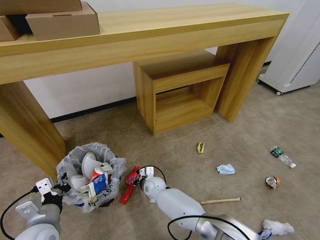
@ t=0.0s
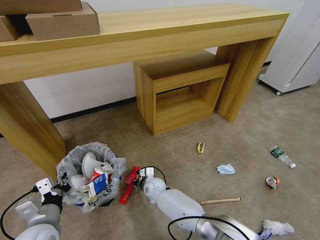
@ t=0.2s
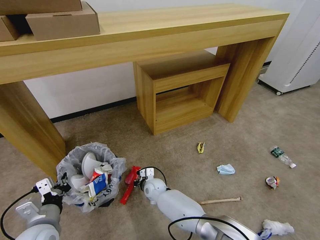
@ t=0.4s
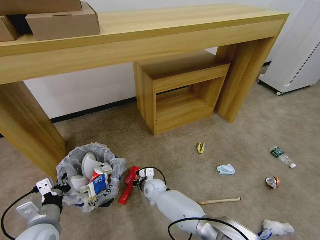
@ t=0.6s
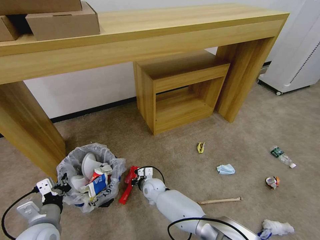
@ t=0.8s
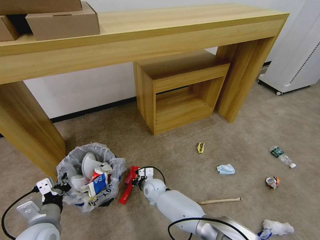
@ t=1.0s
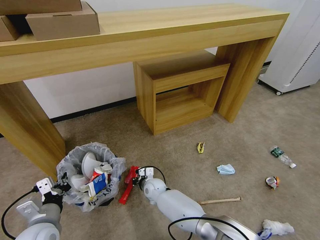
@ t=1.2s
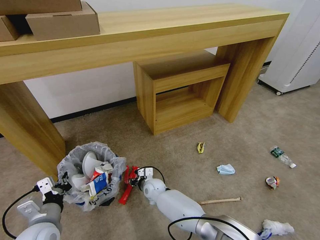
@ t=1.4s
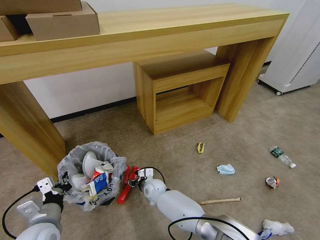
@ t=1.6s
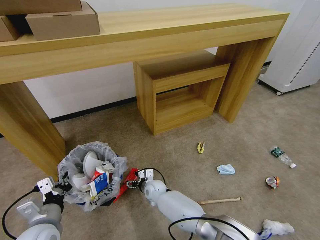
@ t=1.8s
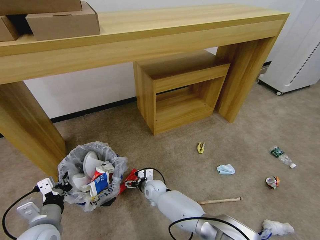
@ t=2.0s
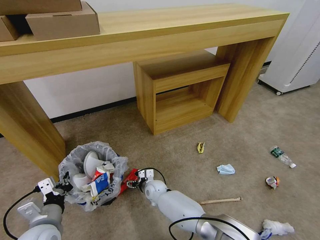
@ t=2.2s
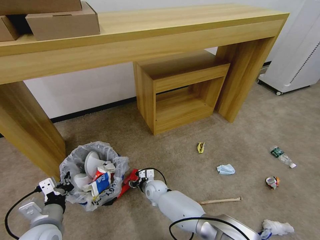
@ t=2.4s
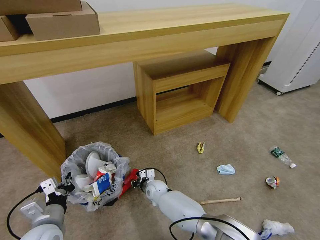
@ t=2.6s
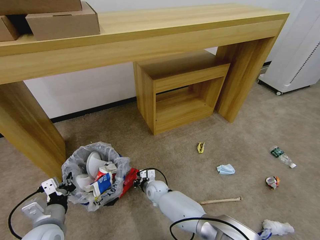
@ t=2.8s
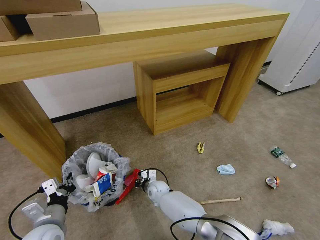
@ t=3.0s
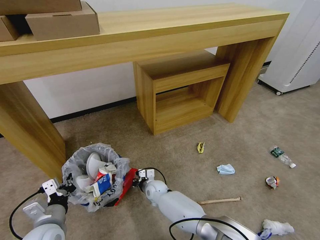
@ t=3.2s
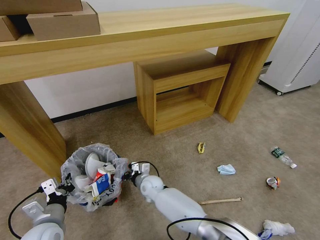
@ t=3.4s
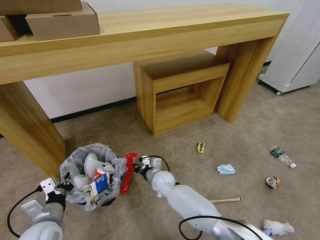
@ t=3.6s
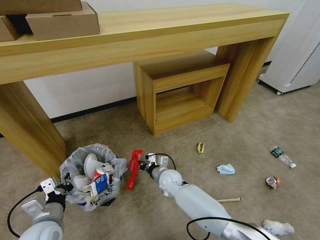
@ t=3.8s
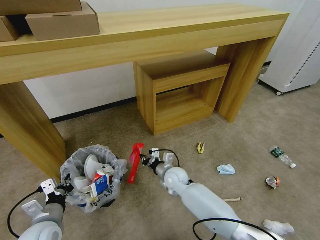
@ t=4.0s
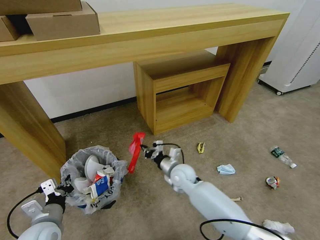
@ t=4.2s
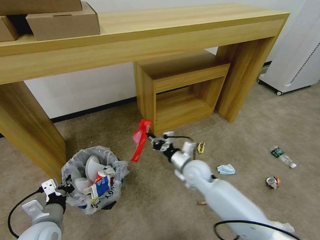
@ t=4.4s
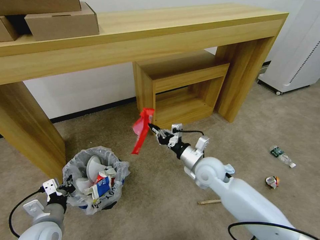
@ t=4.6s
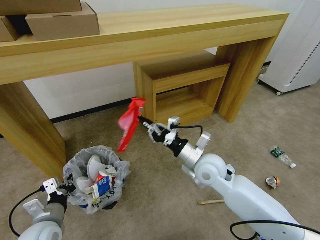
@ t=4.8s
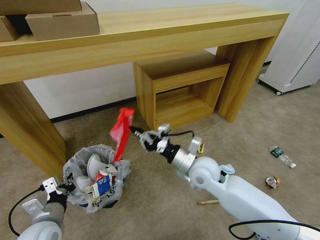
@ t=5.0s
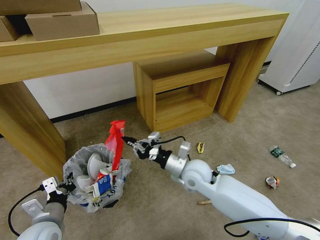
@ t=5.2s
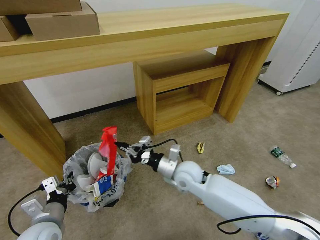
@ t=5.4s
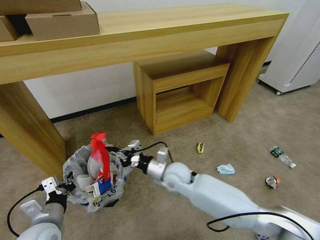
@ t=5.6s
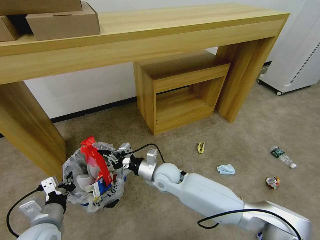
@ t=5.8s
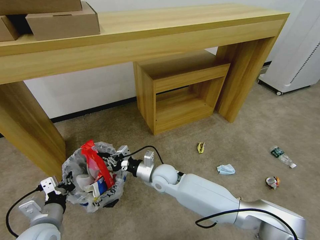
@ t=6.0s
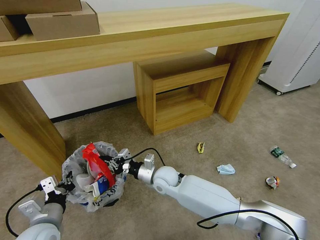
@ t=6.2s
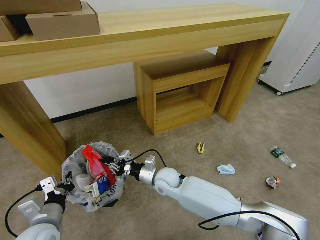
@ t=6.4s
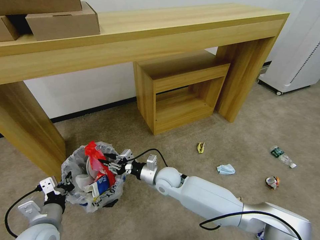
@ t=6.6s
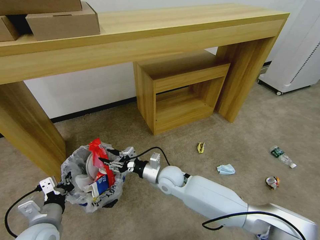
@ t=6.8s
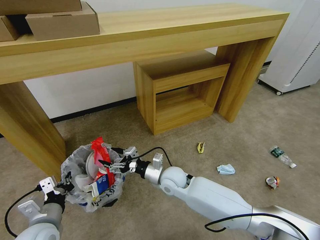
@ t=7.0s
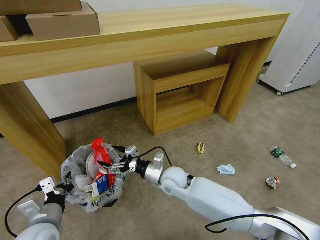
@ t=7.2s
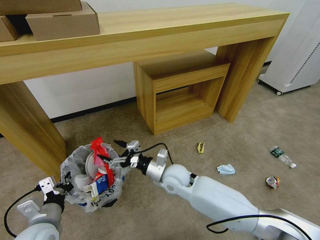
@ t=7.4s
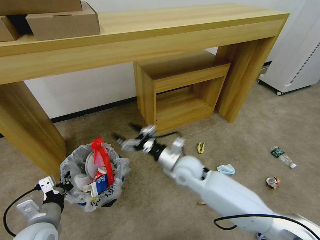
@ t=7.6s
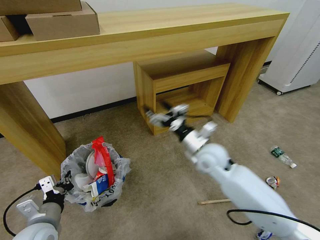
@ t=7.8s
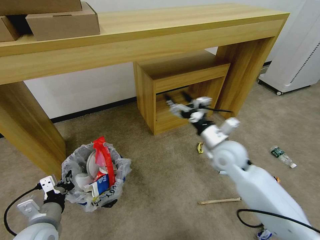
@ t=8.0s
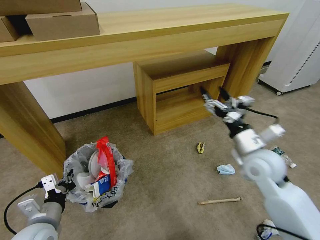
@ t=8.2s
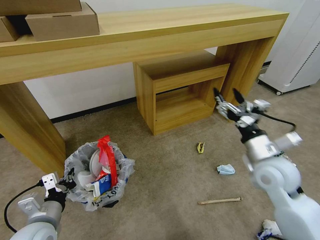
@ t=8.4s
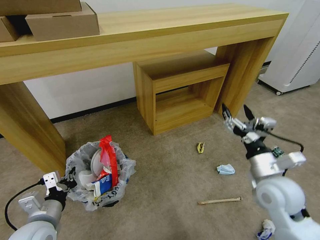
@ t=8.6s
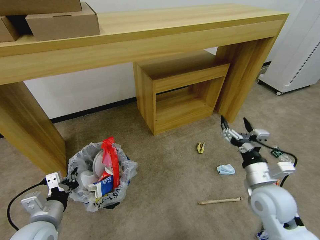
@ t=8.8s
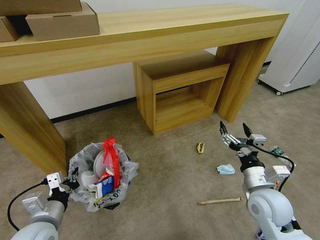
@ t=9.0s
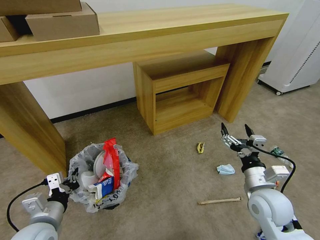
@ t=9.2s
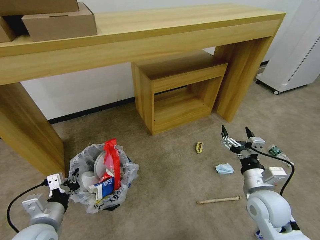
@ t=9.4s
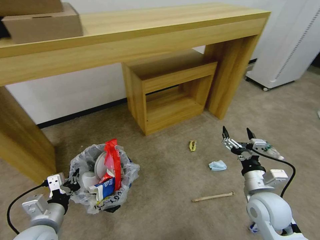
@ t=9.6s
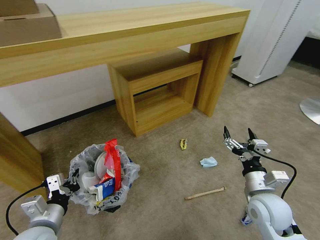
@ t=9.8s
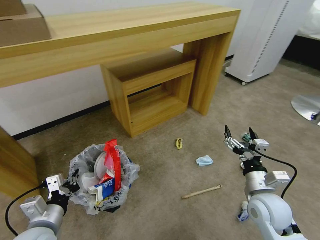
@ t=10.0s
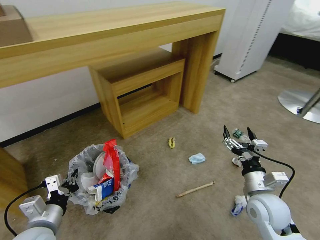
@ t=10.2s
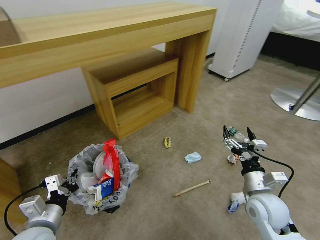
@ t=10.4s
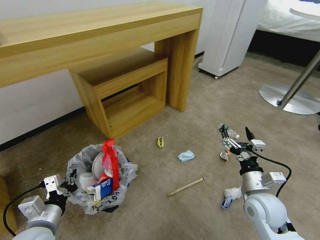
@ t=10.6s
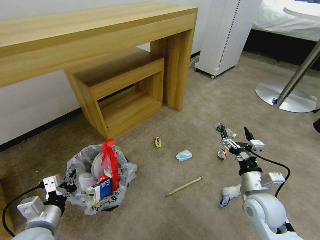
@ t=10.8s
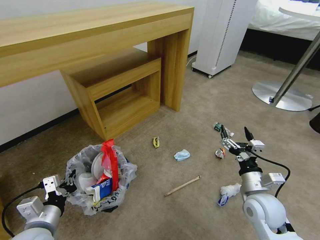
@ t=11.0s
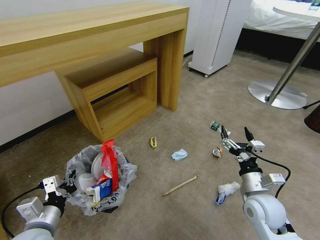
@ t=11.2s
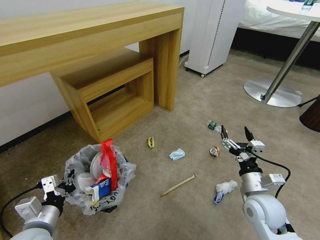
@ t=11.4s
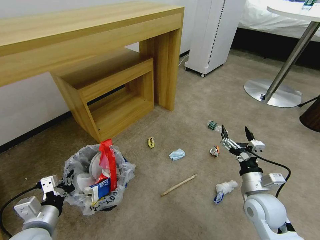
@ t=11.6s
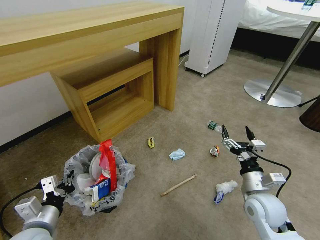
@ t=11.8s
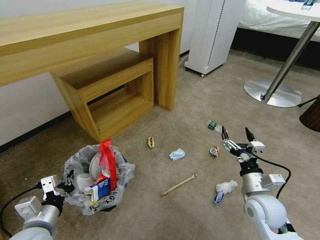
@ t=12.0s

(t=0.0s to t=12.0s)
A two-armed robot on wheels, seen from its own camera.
Task of the whole recording: Pick up the trash bin and place the garbage on the floor into it.
t=0.0s - t=1.6s: The right gripper opens up.
t=1.6s - t=3.0s: The right gripper closes its fingers.
t=3.0s - t=4.4s: The right gripper goes roughly 20 cm upward and to the right.
t=4.4s - t=6.0s: The right gripper moves to the left, approximately 10 cm.
t=6.0s - t=7.6s: The right gripper travels to the right and upward by roughly 10 cm, and opens its fingers.
t=7.6s - t=9.0s: The right gripper shifts about 25 cm to the right and backward.

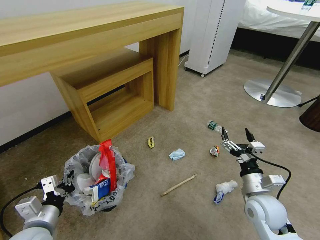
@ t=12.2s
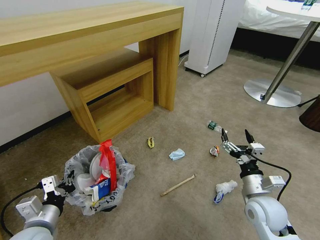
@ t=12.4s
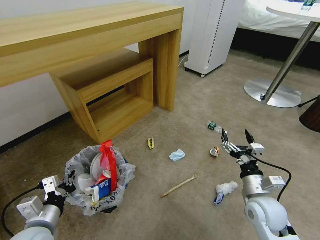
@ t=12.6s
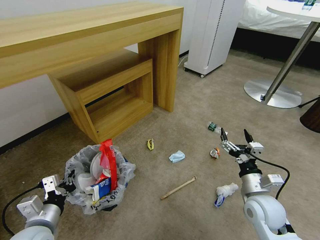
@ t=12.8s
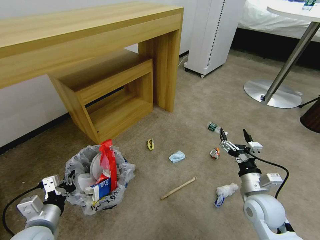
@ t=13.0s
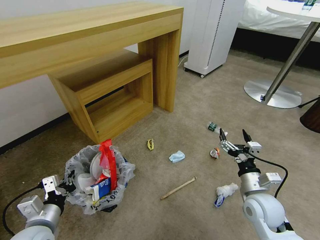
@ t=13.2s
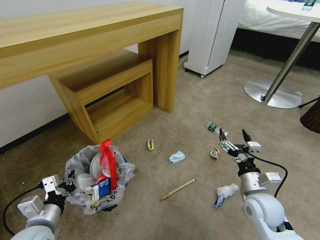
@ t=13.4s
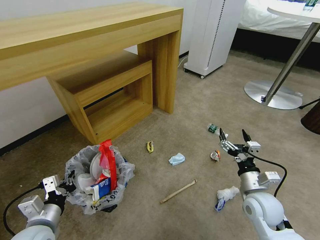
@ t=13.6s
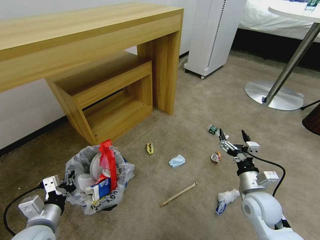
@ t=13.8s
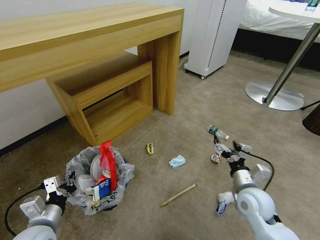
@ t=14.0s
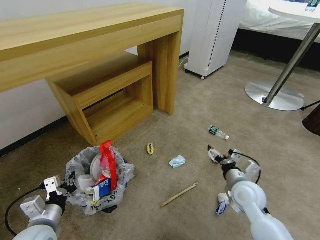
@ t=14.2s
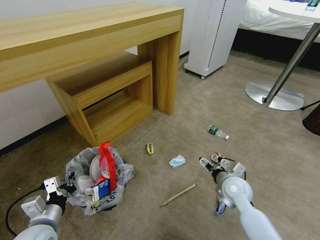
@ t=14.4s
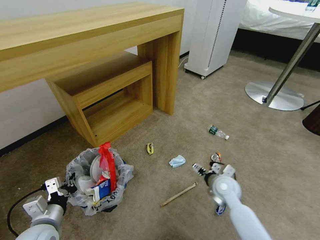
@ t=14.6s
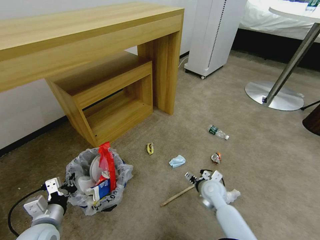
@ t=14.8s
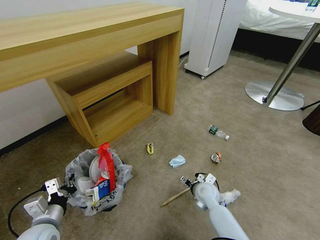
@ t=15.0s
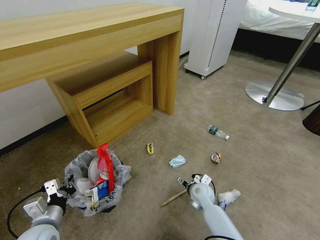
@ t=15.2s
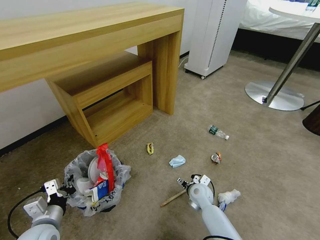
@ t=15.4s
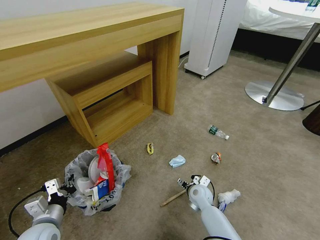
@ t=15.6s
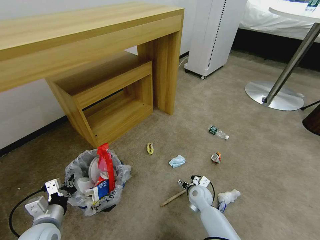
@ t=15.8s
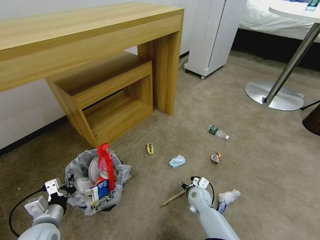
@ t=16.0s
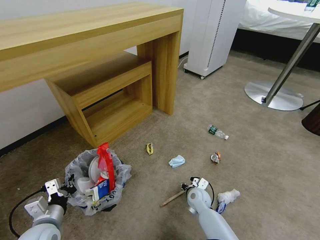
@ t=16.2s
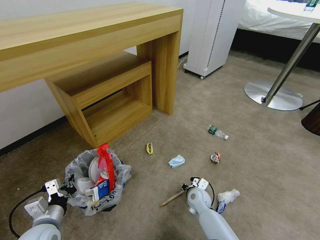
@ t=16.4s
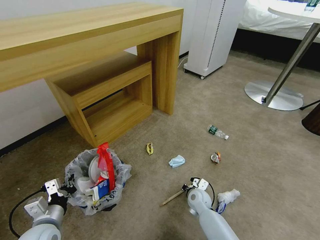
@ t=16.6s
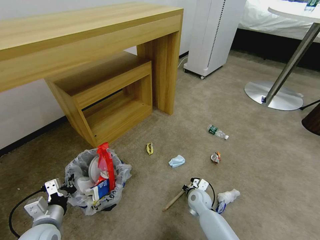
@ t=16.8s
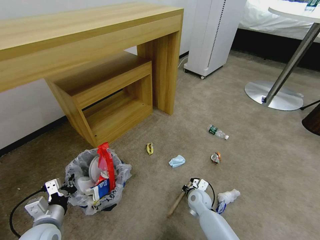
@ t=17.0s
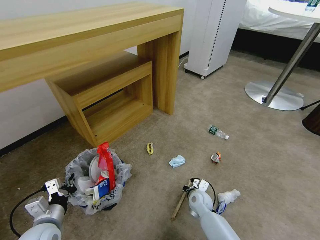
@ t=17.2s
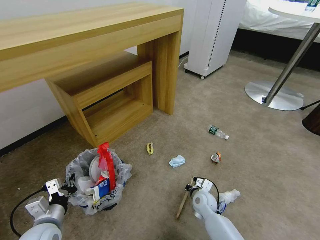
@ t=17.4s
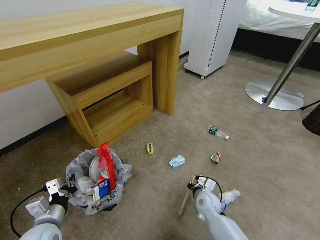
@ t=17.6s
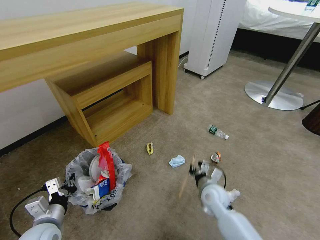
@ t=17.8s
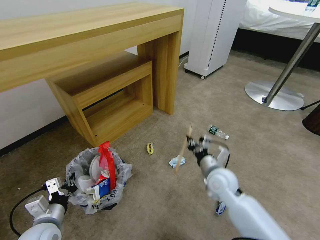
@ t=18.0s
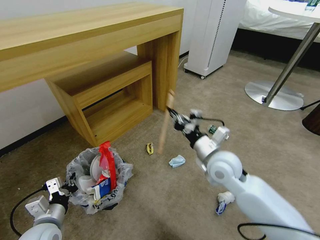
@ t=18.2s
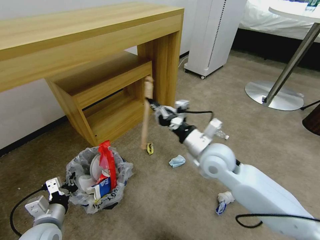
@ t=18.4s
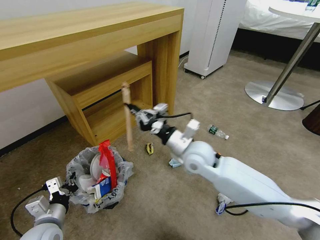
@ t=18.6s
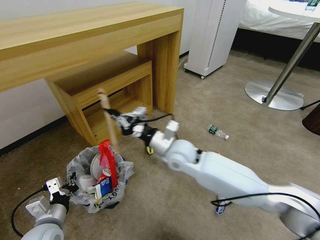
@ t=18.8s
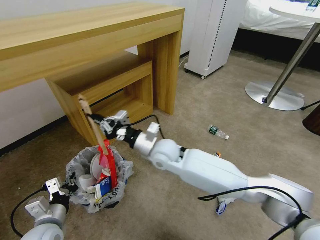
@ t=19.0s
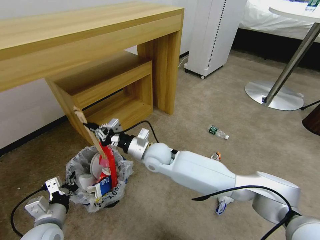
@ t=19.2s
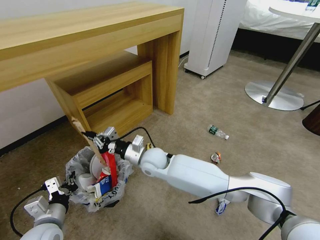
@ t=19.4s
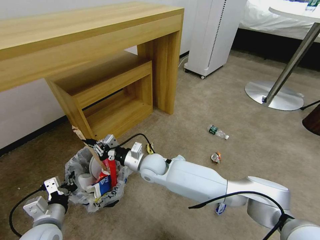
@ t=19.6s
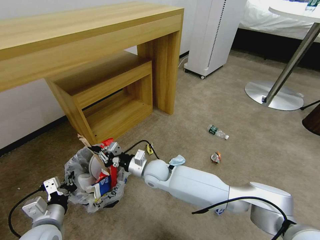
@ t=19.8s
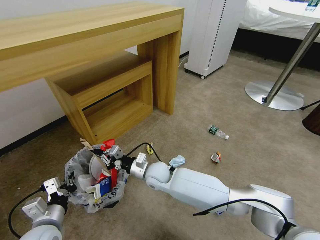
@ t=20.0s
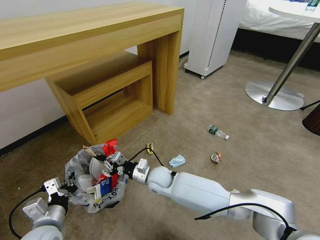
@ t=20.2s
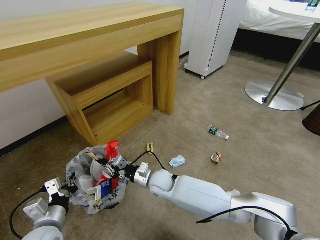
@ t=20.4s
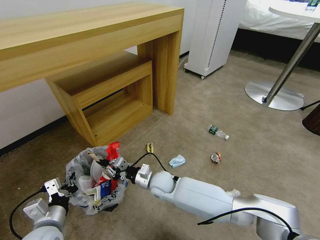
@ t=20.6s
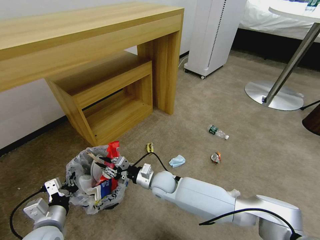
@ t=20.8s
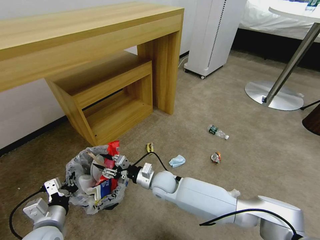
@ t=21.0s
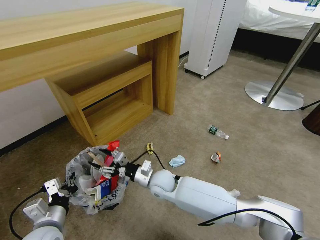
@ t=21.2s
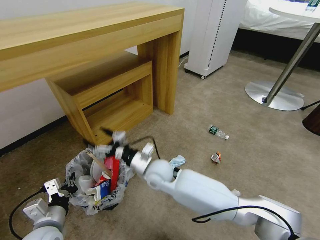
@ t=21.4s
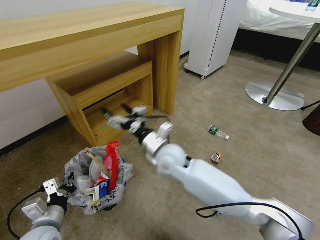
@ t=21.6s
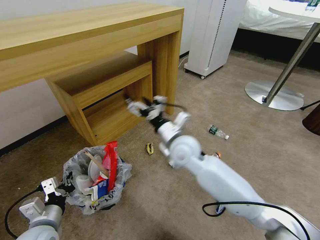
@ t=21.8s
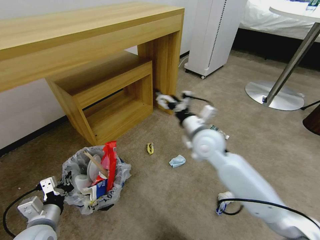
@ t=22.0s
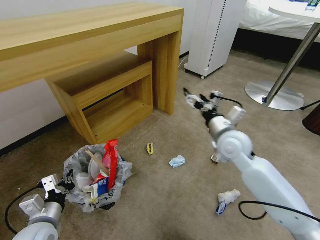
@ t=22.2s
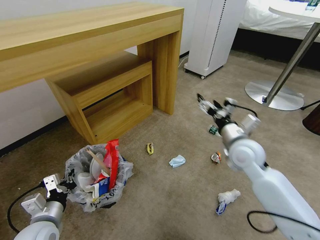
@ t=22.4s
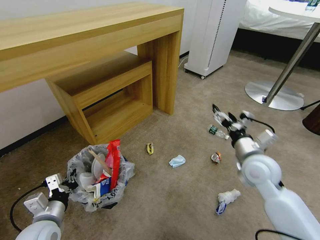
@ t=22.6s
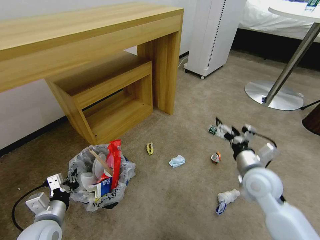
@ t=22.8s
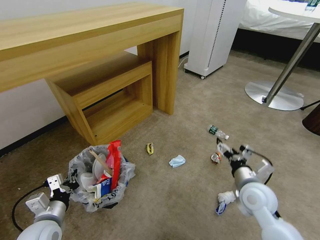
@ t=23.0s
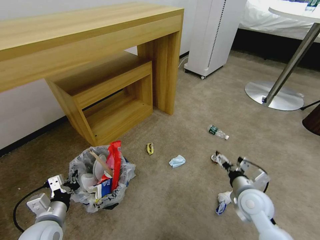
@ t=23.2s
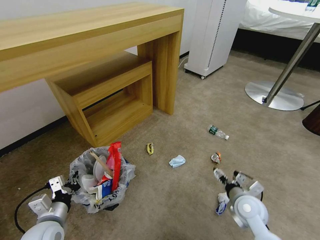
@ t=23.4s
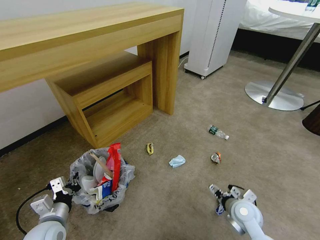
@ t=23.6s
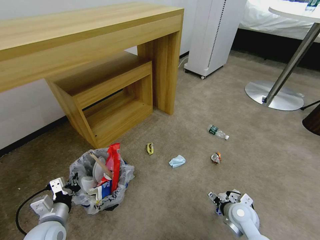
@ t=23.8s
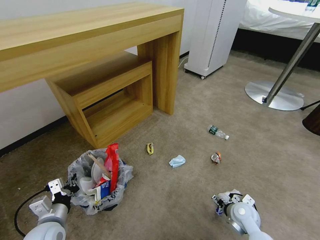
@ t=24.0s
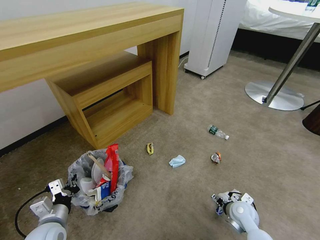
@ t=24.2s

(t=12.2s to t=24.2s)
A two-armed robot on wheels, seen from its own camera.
Task of the whole recording: Pick up the trash bin and place the garbage on the floor into it.
t=12.2s - t=13.8s: The grippers make only small movements.
t=13.8s - t=15.2s: The right gripper heads downward, to the left and forward, covering approximately 20 cm.
t=15.2s - t=16.6s: The right gripper closes up.
t=16.6s - t=18.2s: The right gripper travels upward by roughly 25 cm.
t=18.2s - t=19.8s: The right gripper heads to the left and downward, covering roughly 25 cm.
t=19.8s - t=21.2s: The right gripper shifts by some 5 cm, and opens up.
t=21.2s - t=22.6s: The right gripper shifts some 30 cm to the right and upward, and opens.
t=22.6s - t=24.2s: The right gripper heads downward, covering about 20 cm.
